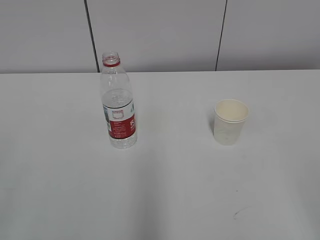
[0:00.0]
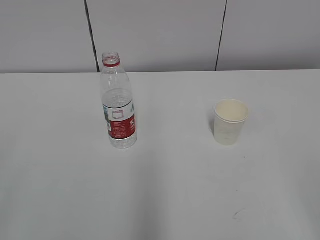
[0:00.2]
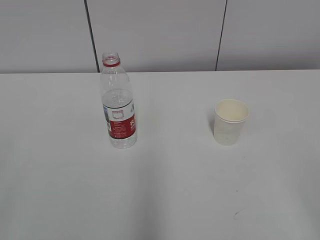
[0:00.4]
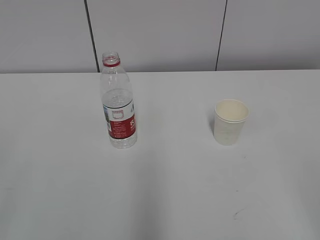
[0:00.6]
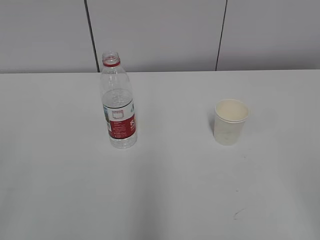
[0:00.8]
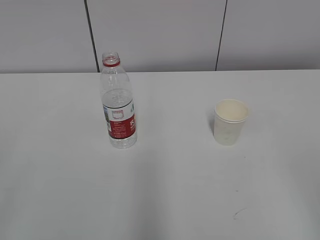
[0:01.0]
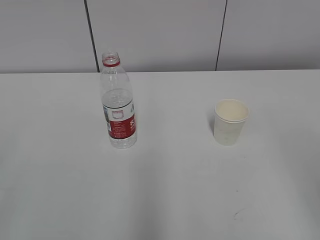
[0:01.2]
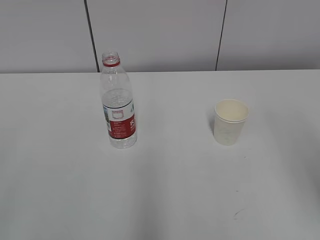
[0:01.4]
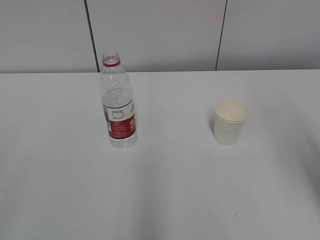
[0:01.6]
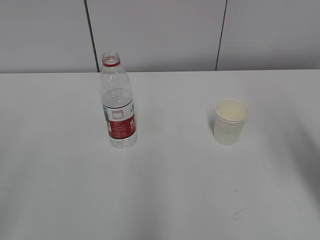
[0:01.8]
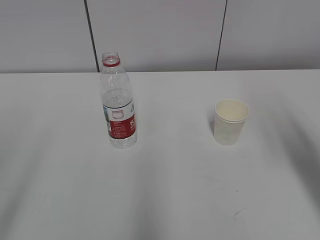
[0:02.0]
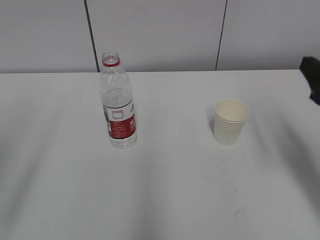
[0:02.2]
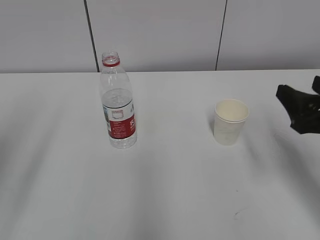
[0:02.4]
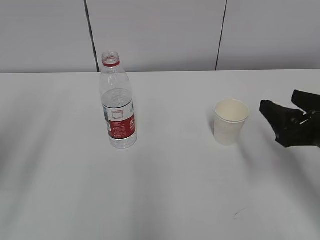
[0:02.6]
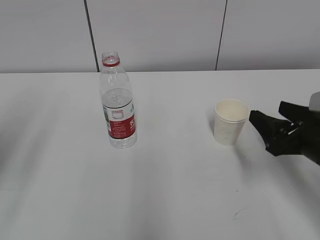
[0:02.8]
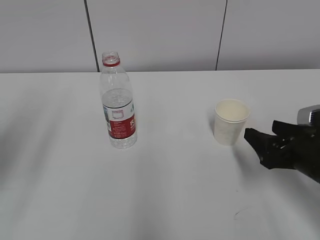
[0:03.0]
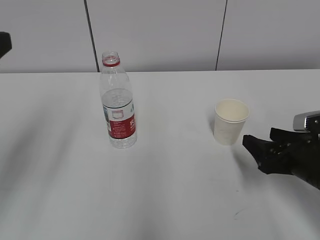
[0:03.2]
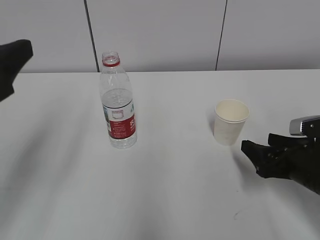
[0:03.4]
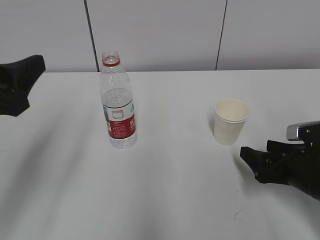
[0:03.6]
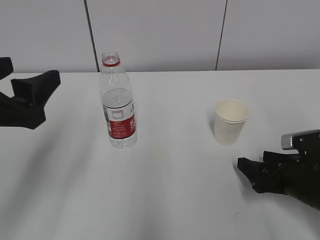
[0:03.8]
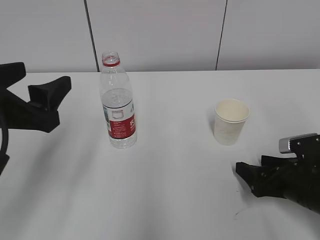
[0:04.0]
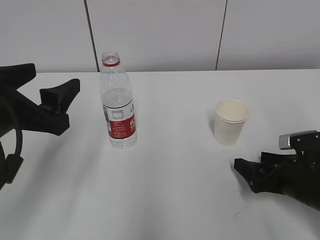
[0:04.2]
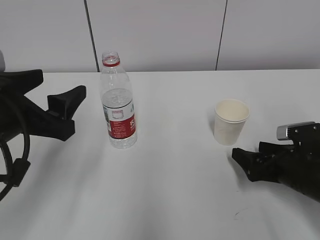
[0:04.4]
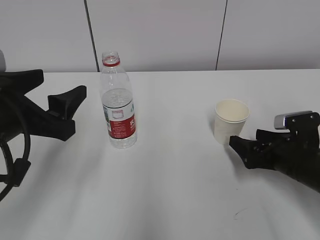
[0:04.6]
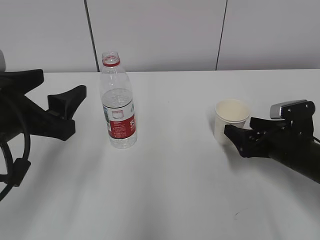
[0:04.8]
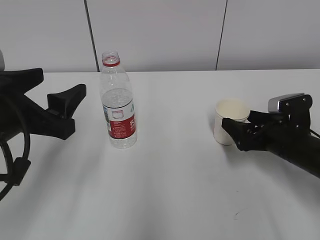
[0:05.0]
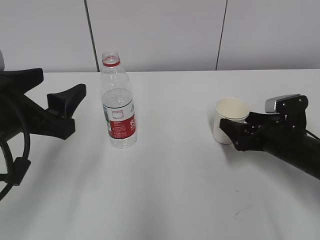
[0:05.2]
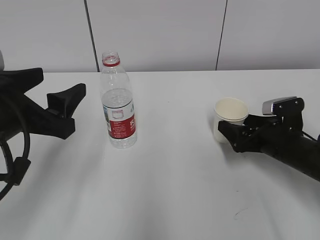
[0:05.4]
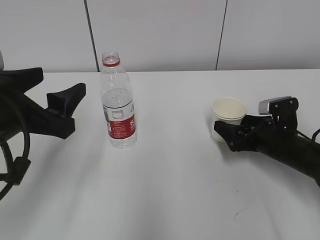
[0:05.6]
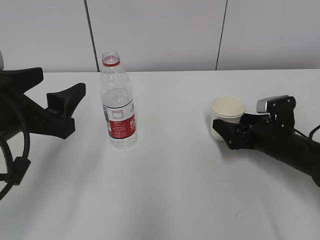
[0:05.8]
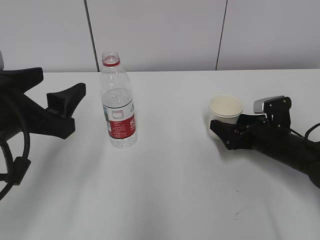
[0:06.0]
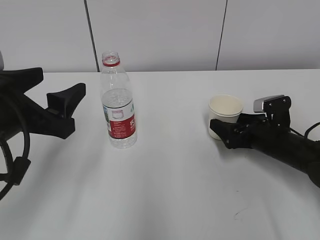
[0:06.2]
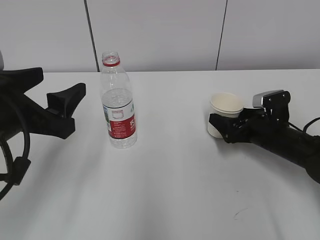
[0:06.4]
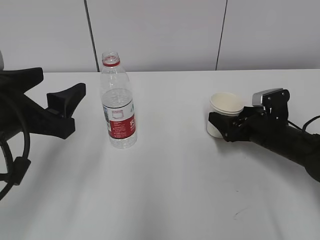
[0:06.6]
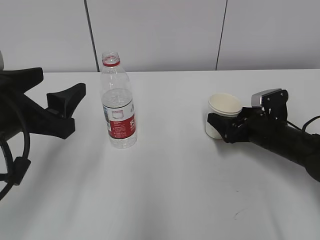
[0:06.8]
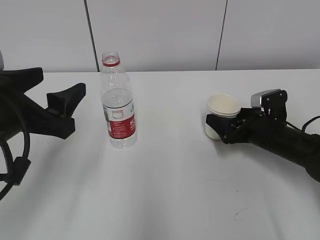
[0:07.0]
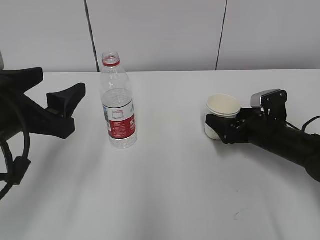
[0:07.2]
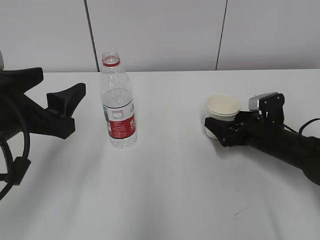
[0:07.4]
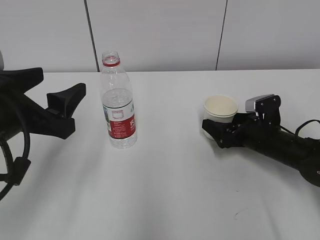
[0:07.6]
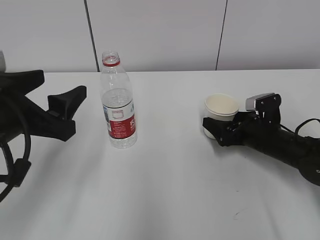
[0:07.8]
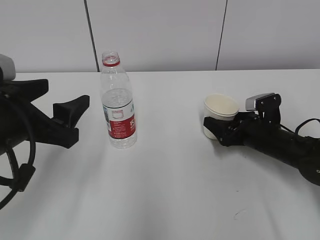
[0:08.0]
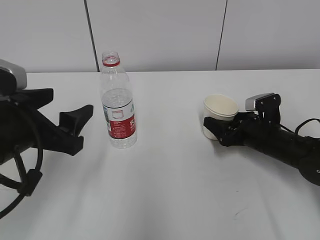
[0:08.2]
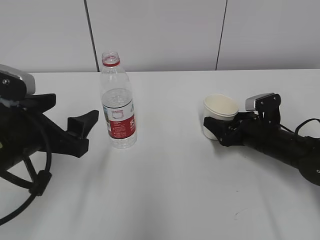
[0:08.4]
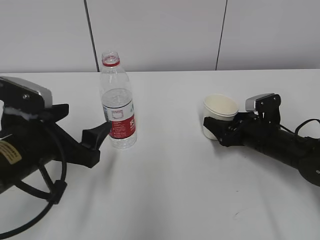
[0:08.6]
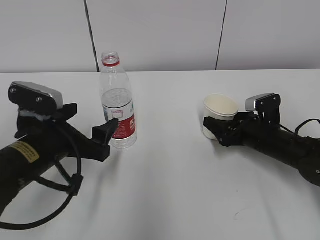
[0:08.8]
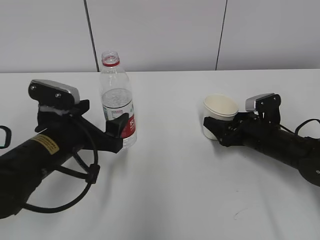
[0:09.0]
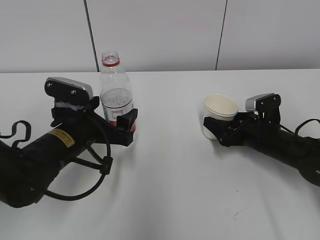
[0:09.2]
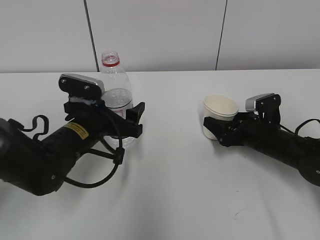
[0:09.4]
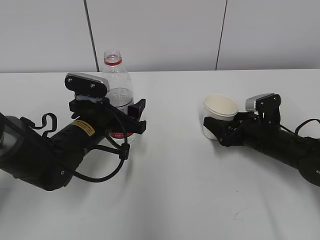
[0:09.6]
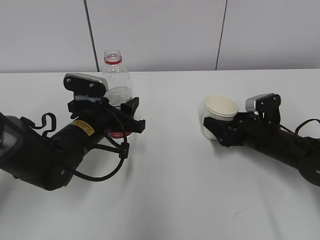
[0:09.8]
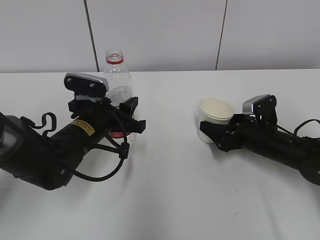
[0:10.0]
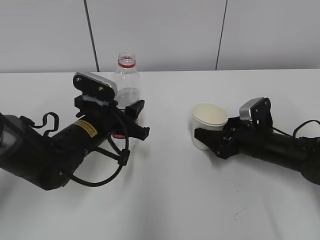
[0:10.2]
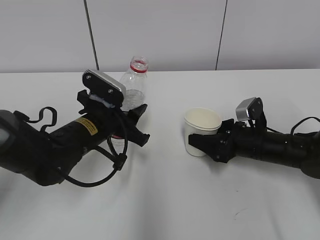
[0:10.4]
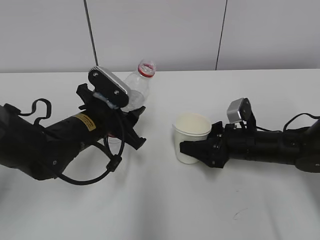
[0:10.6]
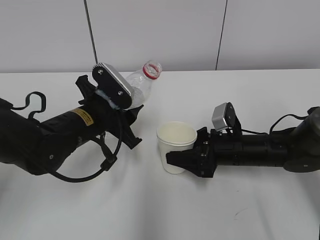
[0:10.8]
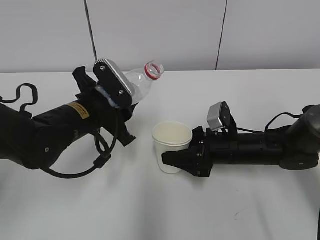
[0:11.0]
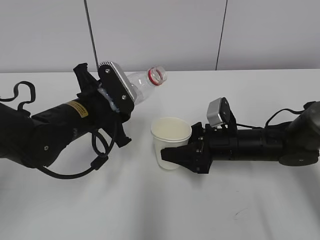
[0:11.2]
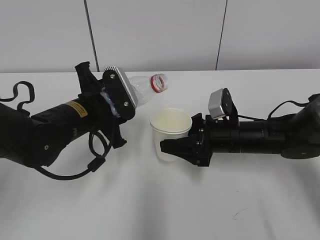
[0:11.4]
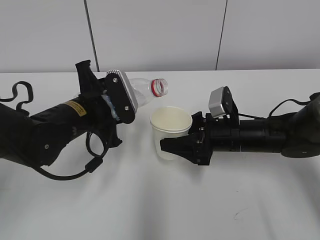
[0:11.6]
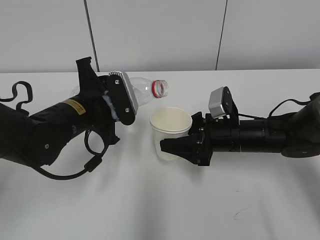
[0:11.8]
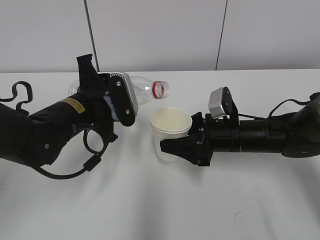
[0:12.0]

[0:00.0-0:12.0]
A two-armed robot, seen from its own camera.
Step, 0:00.0 to 0:08.4: Grab the water bottle with the left hand.
Step, 0:09.2 to 0:10.6: Lift the paper cup with the right hand.
0:01.6 to 0:03.0: The right gripper shifts some 25 cm downward and forward.
0:03.0 to 0:04.4: The right gripper moves downward, some 5 cm, and opens up, while the left gripper moves to the right and downward, some 15 cm.
0:04.4 to 0:06.0: The right gripper travels forward by some 10 cm.
0:06.0 to 0:07.6: The grippers stay close to where they were, moving slightly.
0:07.6 to 0:09.0: The left gripper shifts approximately 10 cm downward and forward. The right gripper closes up.
0:09.0 to 0:10.4: The left gripper moves forward, approximately 5 cm, and closes.
0:10.4 to 0:12.0: The right gripper travels to the left by some 5 cm.

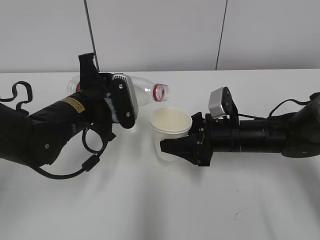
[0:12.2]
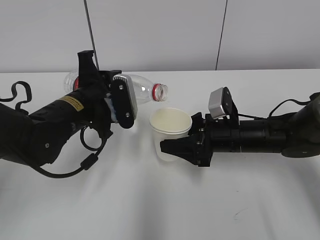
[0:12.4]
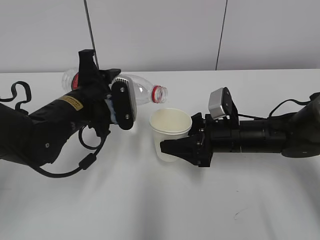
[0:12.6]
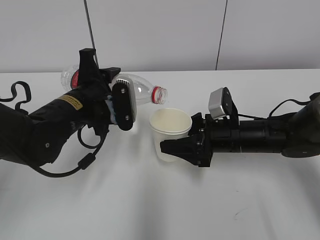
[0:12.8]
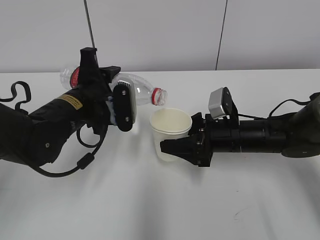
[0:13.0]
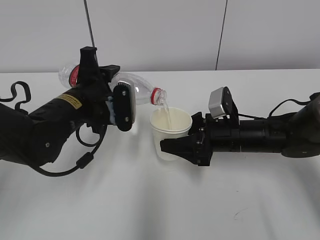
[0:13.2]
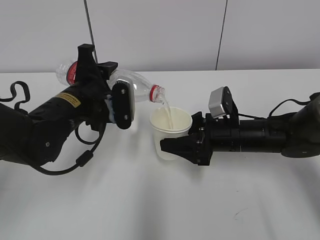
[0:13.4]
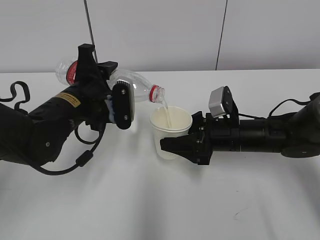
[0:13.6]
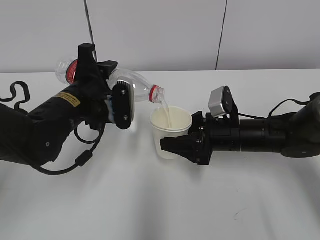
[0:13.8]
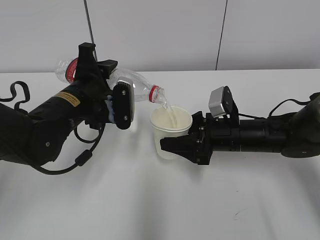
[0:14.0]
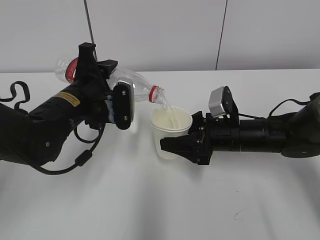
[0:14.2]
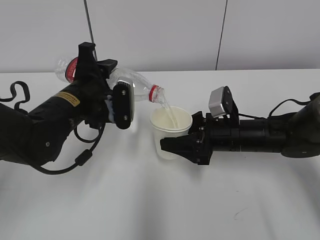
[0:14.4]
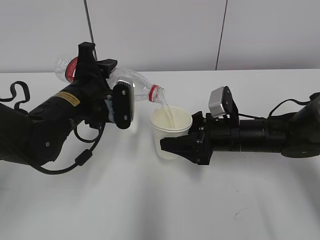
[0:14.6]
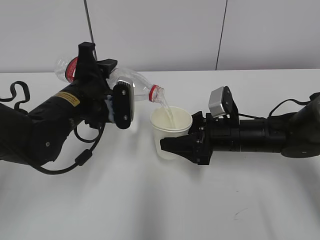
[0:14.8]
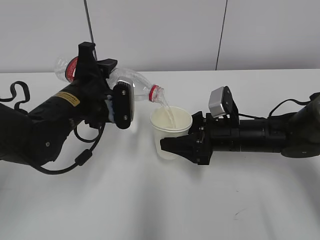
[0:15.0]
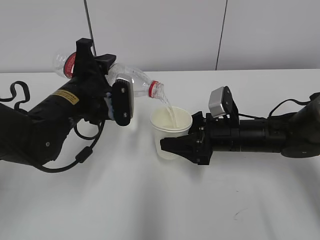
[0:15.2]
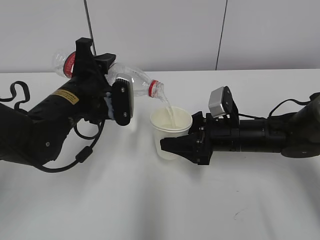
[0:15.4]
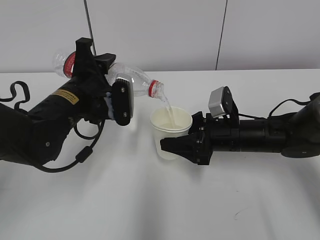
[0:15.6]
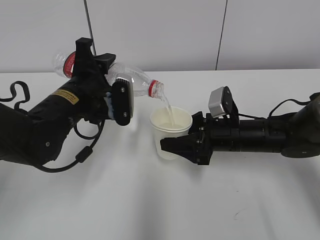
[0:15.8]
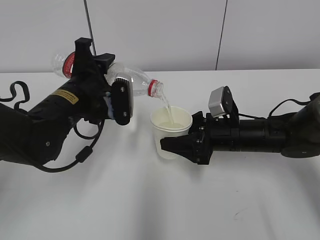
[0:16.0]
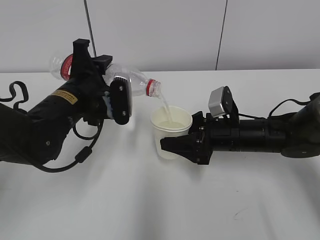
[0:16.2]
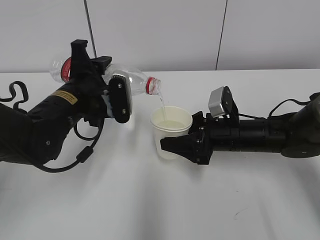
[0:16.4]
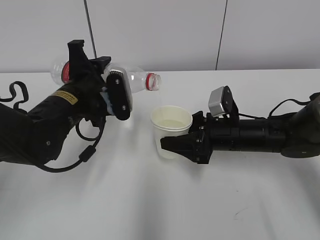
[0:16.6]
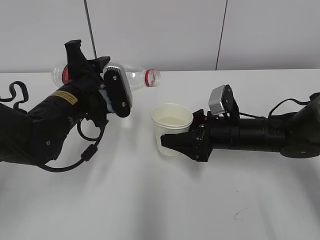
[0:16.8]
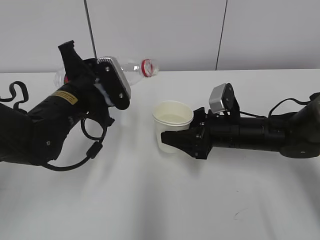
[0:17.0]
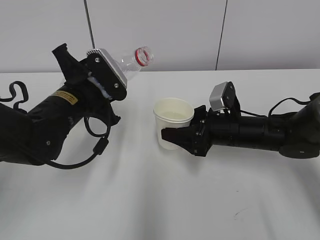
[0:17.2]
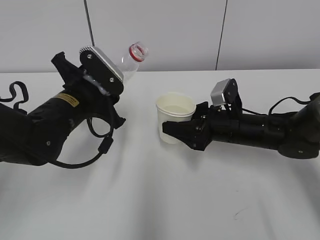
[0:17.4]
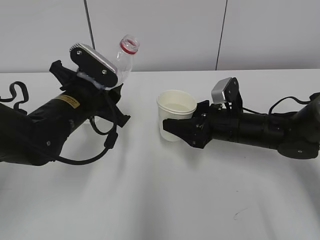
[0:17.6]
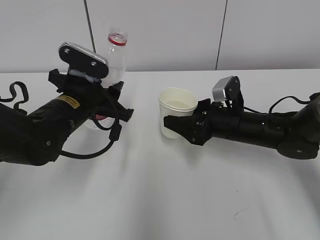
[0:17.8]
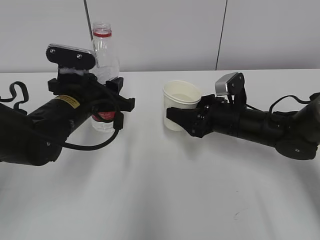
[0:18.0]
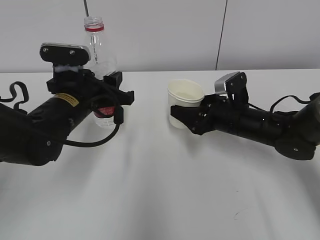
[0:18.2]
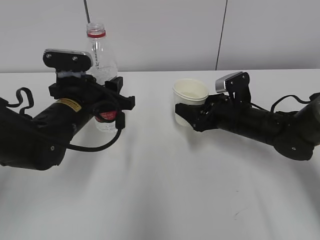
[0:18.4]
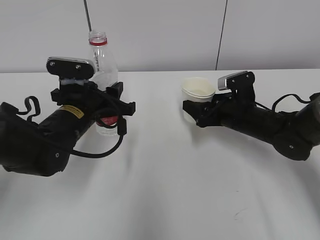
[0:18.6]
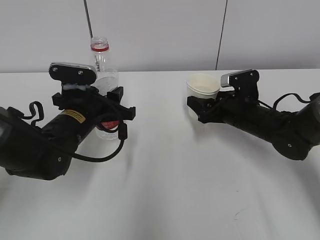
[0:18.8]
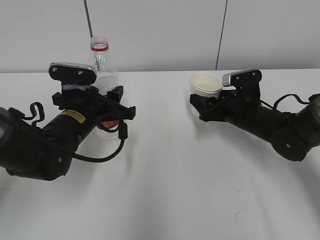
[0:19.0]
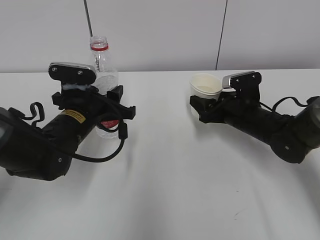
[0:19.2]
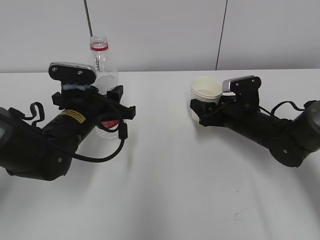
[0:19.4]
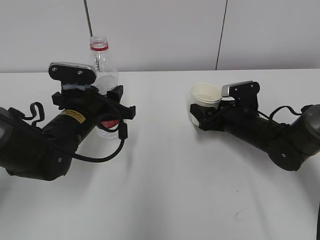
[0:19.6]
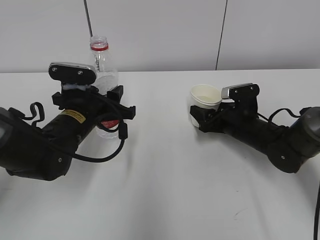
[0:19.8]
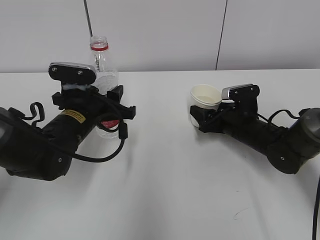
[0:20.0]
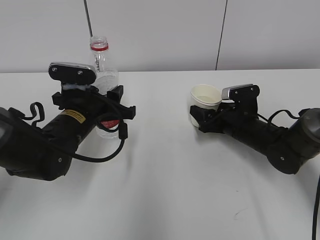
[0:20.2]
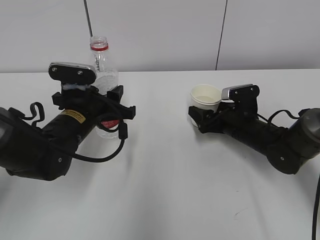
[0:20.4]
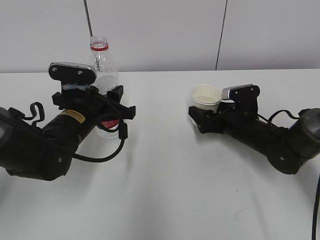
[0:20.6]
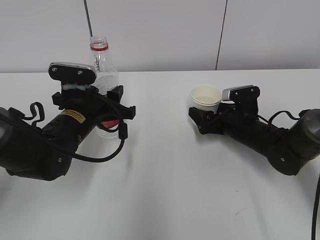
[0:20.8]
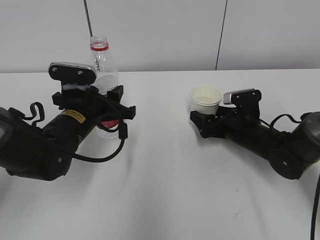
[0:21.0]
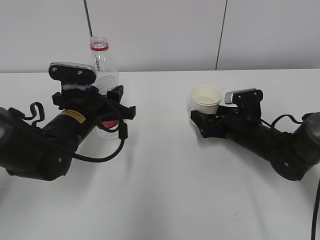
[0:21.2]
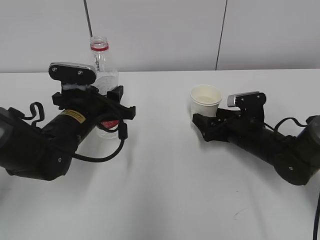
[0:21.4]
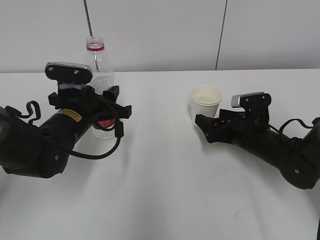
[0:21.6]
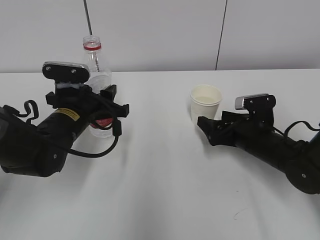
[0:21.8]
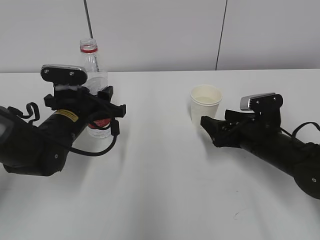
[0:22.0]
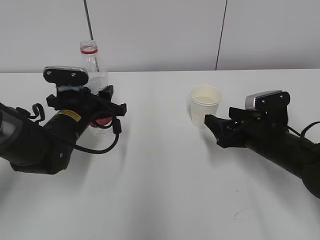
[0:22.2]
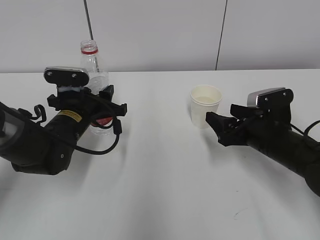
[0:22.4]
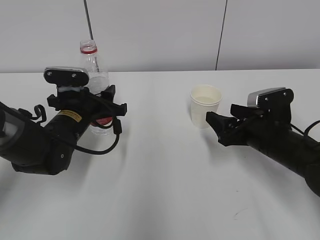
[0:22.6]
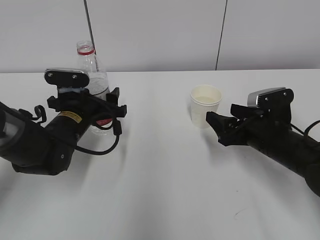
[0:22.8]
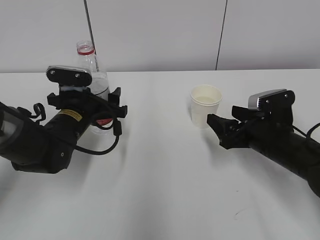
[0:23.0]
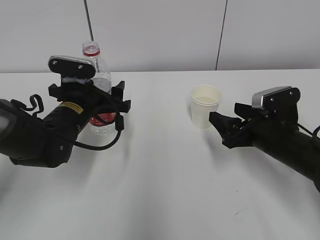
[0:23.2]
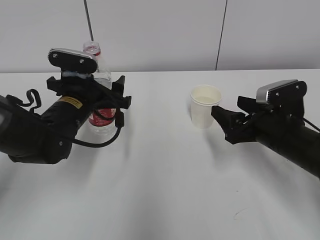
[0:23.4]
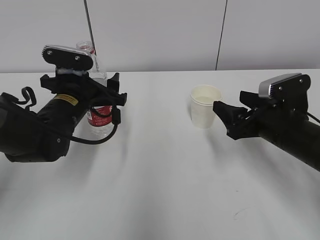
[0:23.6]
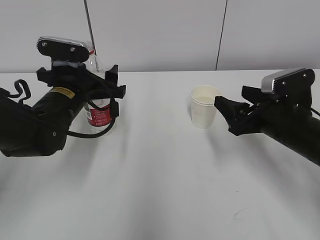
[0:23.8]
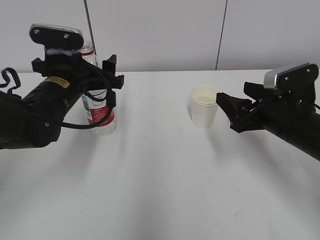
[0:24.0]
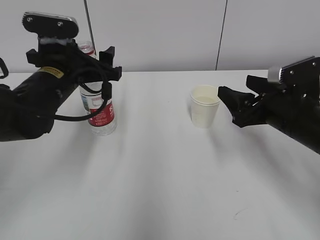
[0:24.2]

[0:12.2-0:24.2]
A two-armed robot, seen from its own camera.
Step, 0:12.2 to 0:13.8: Fill water with the right hand.
Step, 0:12.2 to 0:13.8: Pour water with the left hand.
Step, 0:15.2 to 0:17.2: Place the paper cup with the right hand.
Step, 0:17.4 to 0:19.4: Place the water bottle with the left hand.
0:12.2 to 0:13.8: The grippers make only small movements.
0:13.8 to 0:15.2: Both grippers stay put.
0:15.2 to 0:16.6: The grippers make only small movements.
0:19.8 to 0:21.2: The right gripper opens.
0:21.2 to 0:22.6: The right gripper heads backward, covering about 5 cm, and closes.
0:22.6 to 0:24.2: Both grippers travel together upward, roughly 10 cm. The left gripper opens.
